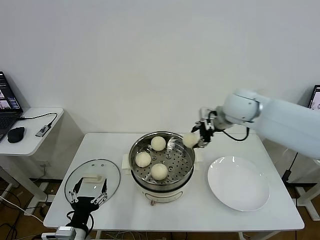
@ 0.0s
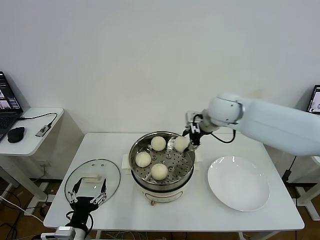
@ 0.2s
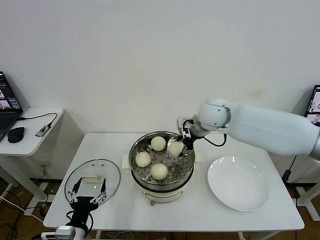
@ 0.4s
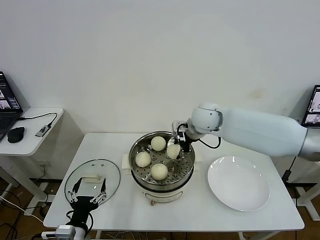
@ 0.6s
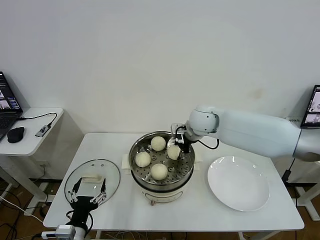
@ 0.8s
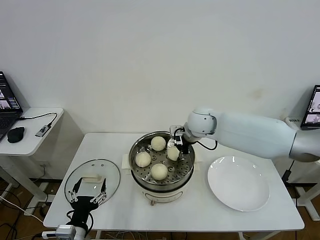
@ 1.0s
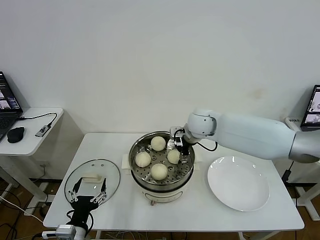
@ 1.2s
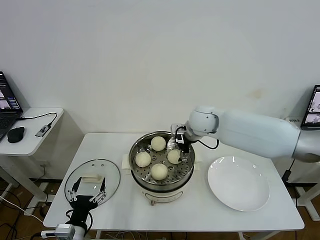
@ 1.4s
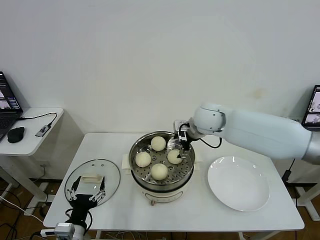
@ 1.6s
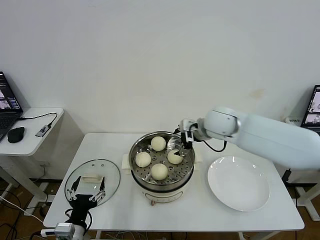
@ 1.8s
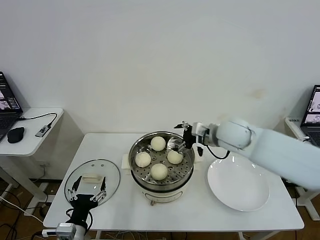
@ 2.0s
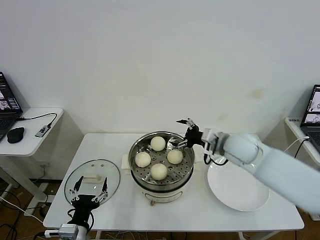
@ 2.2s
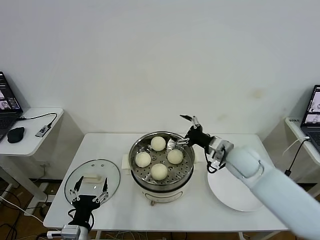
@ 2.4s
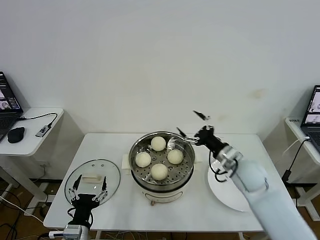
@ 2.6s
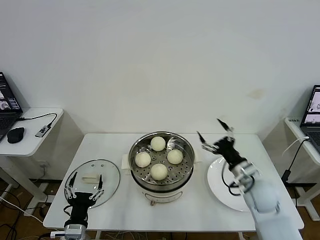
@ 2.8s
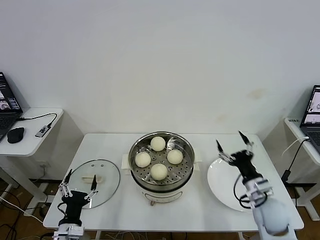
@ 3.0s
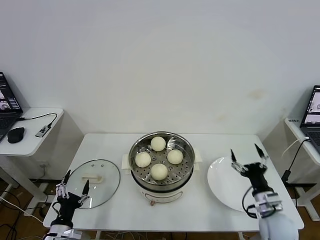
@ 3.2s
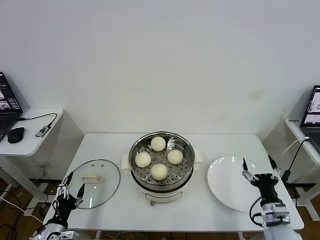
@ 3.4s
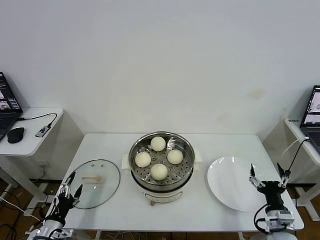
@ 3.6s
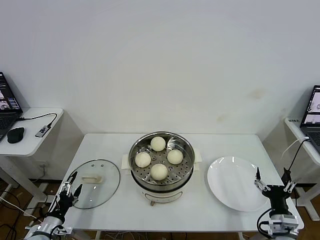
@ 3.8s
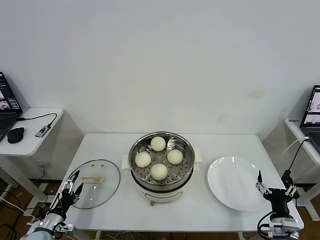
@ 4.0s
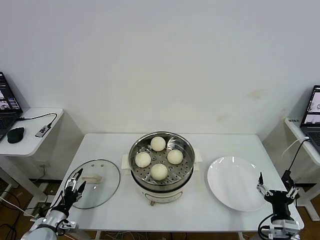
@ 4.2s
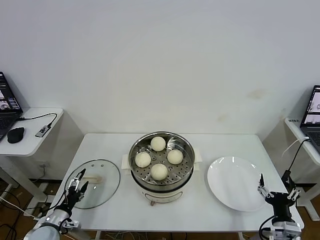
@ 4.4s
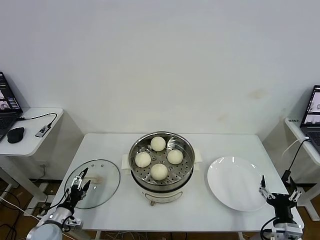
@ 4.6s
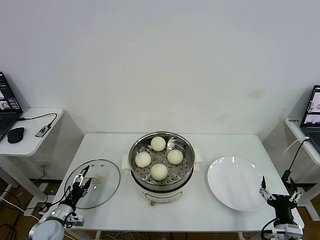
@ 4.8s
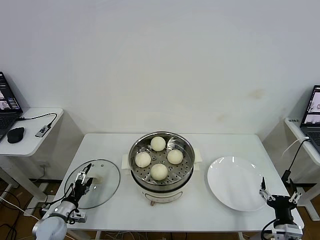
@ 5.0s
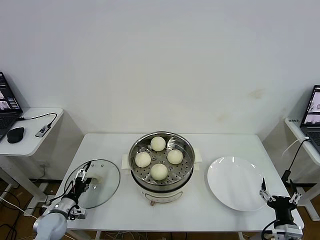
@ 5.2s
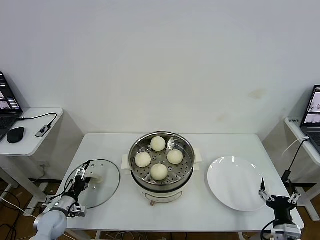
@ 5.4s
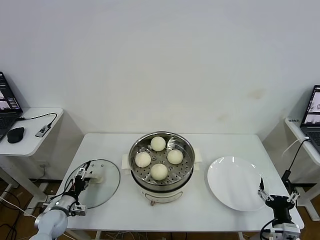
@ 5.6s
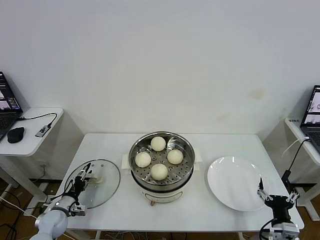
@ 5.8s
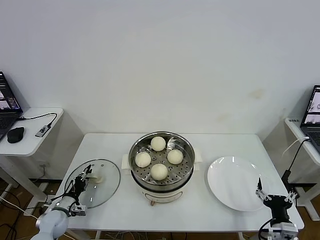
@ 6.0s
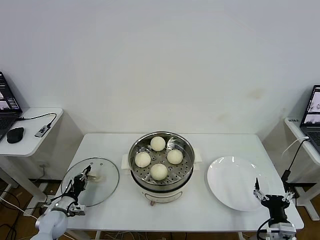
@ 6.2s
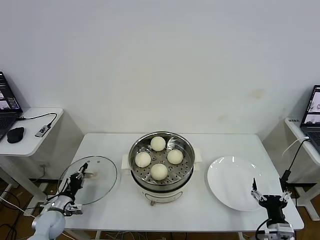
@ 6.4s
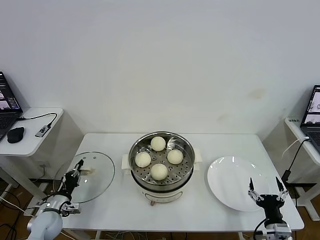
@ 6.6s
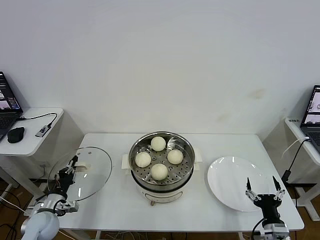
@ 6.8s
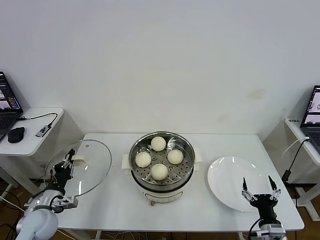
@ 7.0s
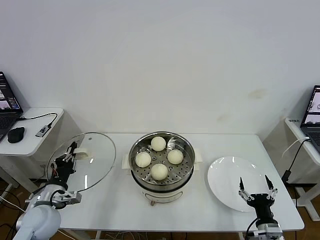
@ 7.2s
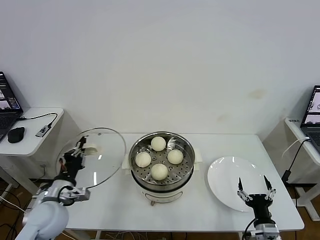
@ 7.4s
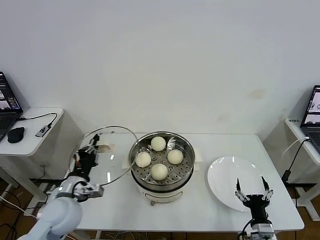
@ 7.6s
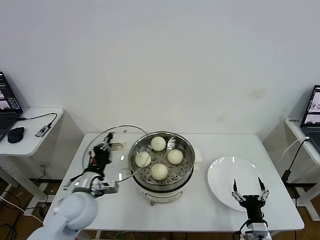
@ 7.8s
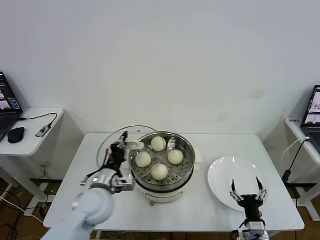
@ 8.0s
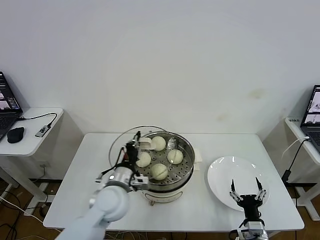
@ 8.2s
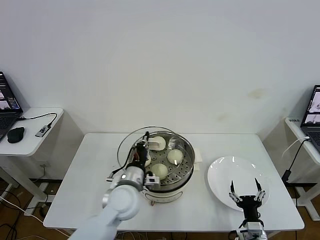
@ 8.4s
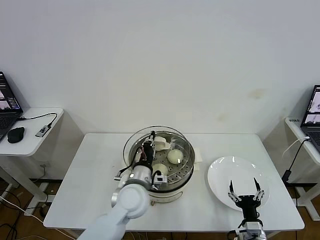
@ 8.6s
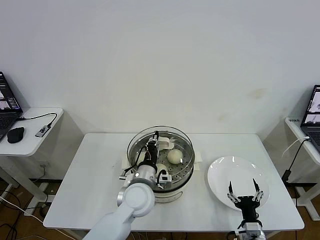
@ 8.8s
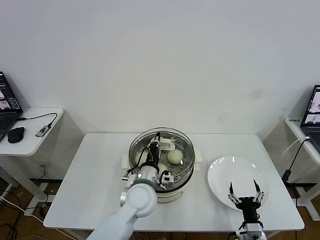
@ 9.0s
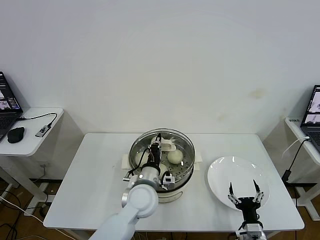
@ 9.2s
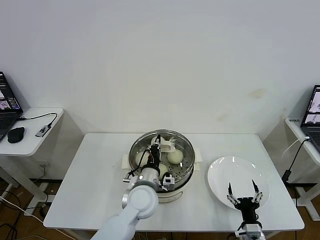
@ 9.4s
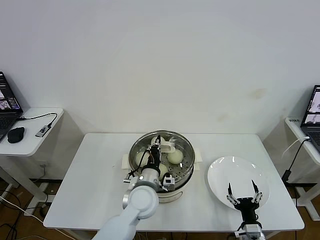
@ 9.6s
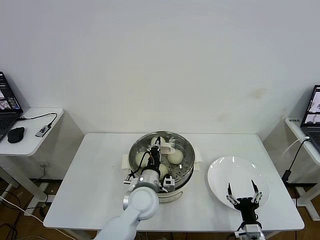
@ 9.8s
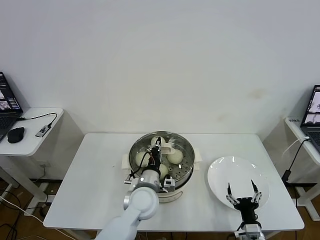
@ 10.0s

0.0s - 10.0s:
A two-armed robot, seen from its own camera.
Task of the whole recording: take steamed baozi put them in steamer then cover it.
Step, 0.0s - 1.4s: Place the baozi on the steamer with right gripper.
Step, 1.6s - 6.4s: Grasp the pot lid with left gripper.
0.0s - 1.4s: The right gripper is displaced to the left and downward by roughly 10 cm, and opens its fingers.
1.4s - 2.8s: The right gripper is displaced backward, to the right and downward by some 30 cm.
2.8s - 4.2s: The left gripper is displaced to the left, downward and forward by approximately 20 cm; the right gripper is displaced backward, downward and to the right by approximately 20 cm.
4.2s - 5.8s: The left gripper travels forward by roughly 5 cm.
5.8s - 7.2s: The left gripper goes approximately 15 cm upward, and closes up.
7.2s - 8.6s: The right gripper shifts by roughly 5 cm. The left gripper is displaced to the right by roughly 25 cm.
8.6s - 10.0s: The grippers move only a little.

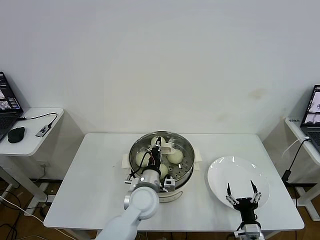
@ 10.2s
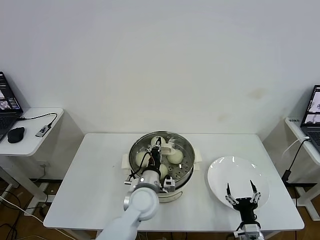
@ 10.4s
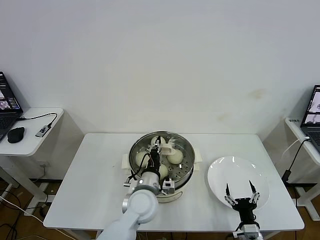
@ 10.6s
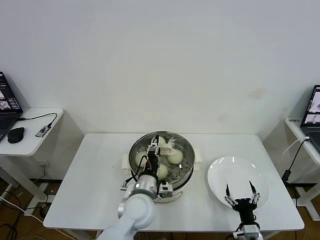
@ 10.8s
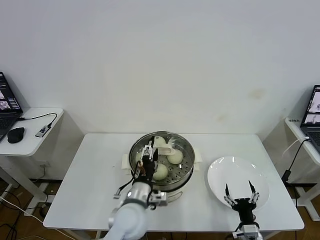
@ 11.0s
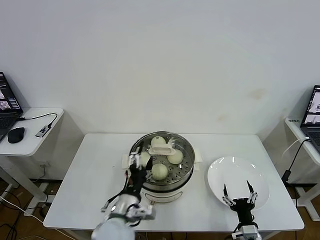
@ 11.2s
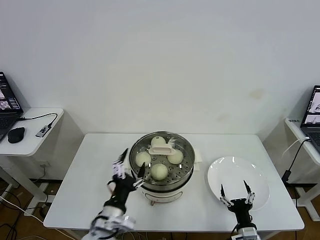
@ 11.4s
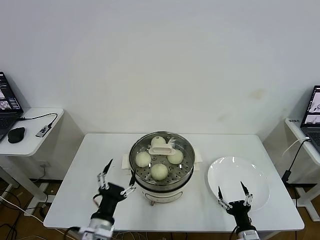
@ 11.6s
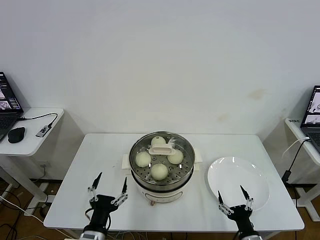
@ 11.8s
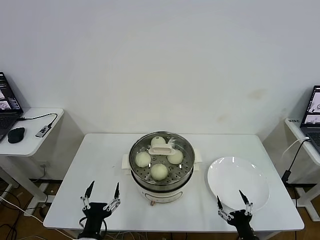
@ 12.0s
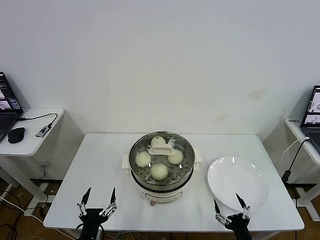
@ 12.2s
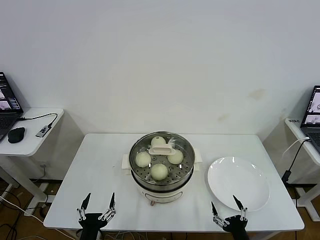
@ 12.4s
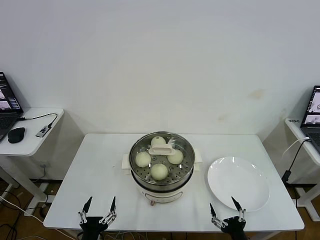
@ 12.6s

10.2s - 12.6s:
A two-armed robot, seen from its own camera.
Task of the whole recording: take steamed baozi put them in steamer then cover it.
10.2s - 11.4s: The left gripper is displaced backward and to the left by about 15 cm, and opens its fingers.
11.4s - 12.6s: The right gripper shifts approximately 5 cm backward. The left gripper shifts about 15 cm backward, to the left and downward.

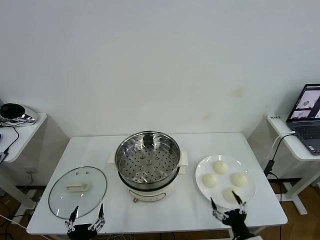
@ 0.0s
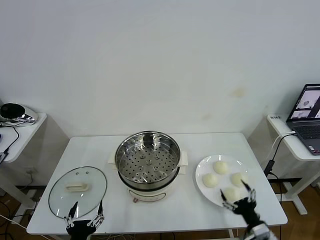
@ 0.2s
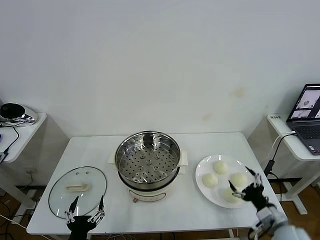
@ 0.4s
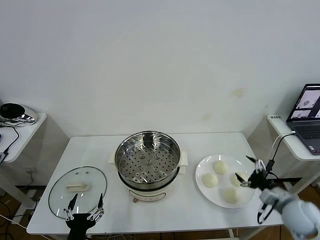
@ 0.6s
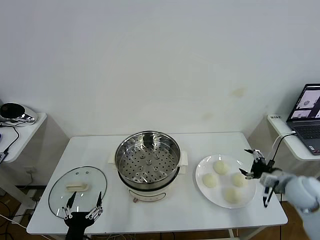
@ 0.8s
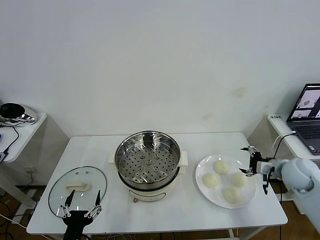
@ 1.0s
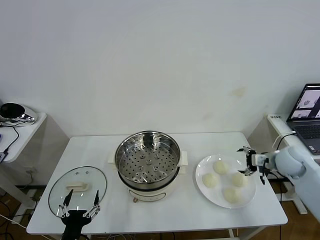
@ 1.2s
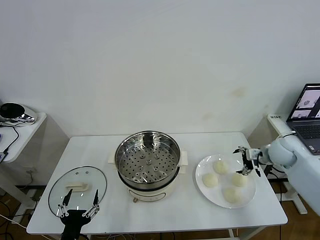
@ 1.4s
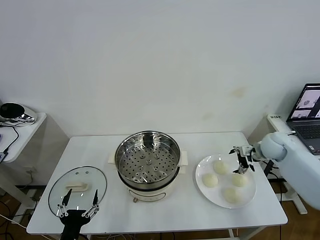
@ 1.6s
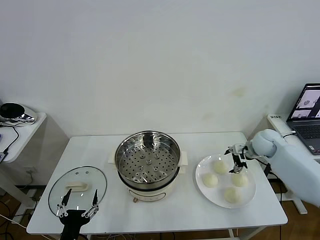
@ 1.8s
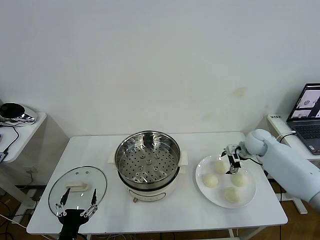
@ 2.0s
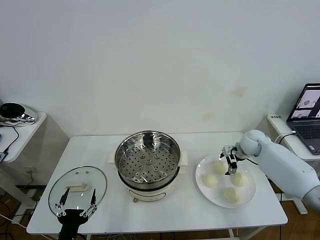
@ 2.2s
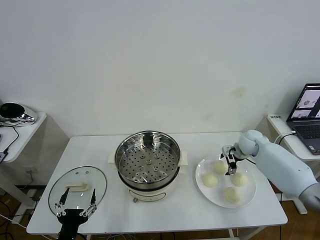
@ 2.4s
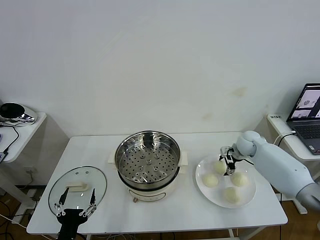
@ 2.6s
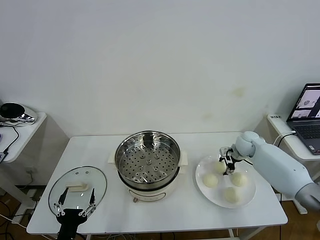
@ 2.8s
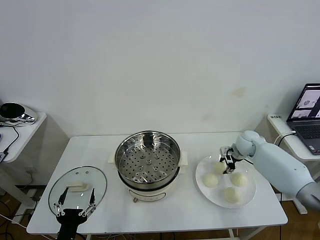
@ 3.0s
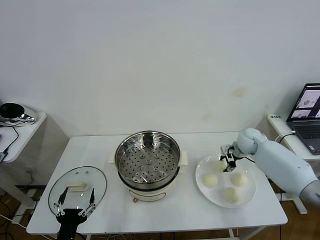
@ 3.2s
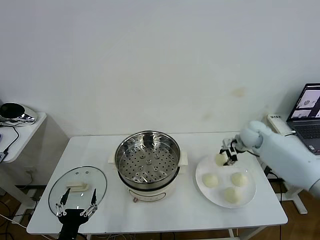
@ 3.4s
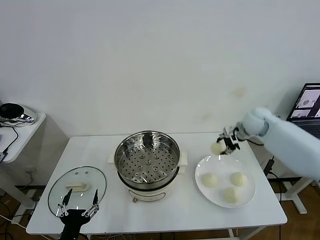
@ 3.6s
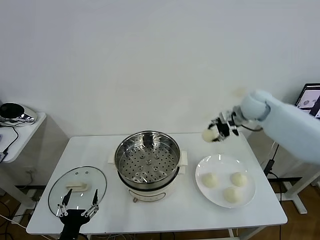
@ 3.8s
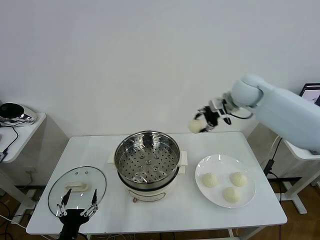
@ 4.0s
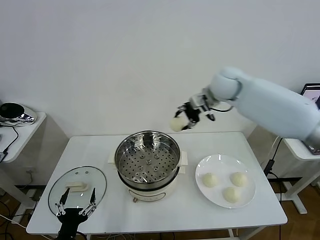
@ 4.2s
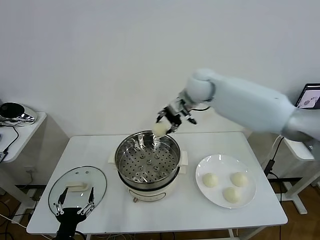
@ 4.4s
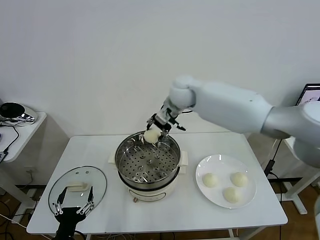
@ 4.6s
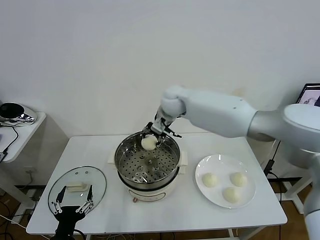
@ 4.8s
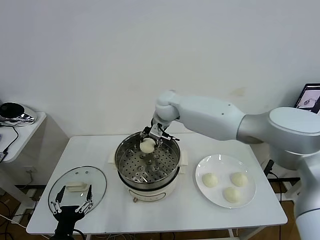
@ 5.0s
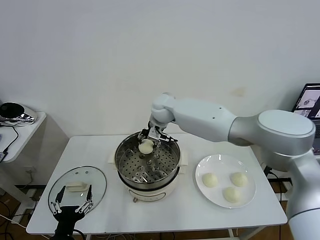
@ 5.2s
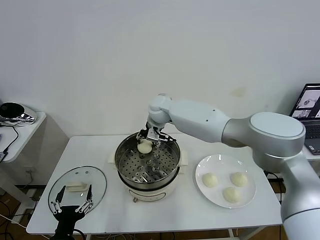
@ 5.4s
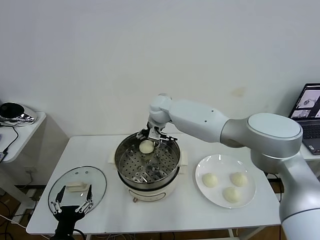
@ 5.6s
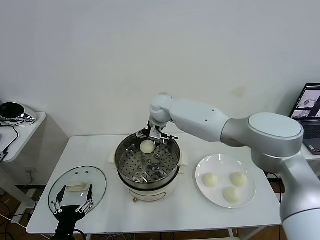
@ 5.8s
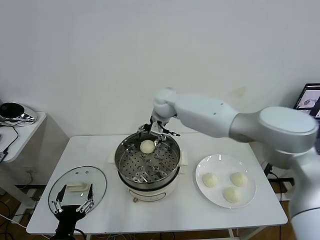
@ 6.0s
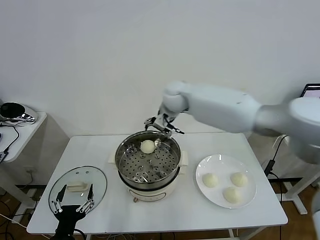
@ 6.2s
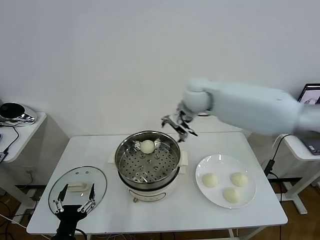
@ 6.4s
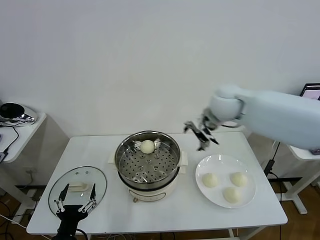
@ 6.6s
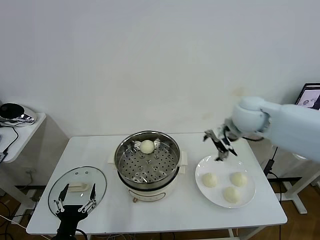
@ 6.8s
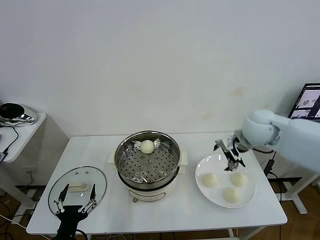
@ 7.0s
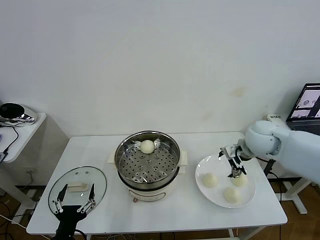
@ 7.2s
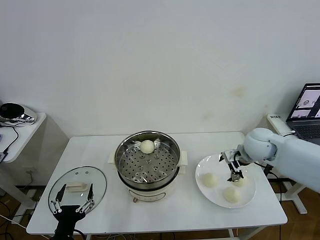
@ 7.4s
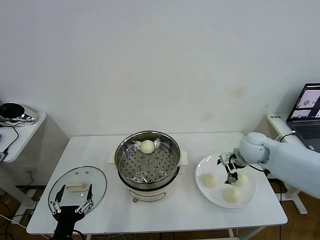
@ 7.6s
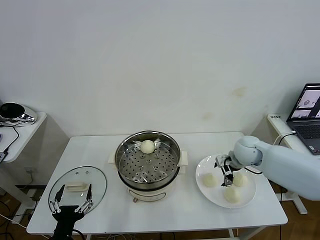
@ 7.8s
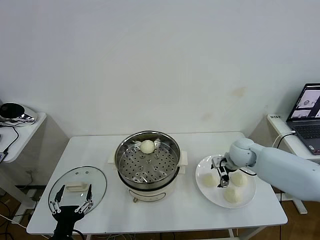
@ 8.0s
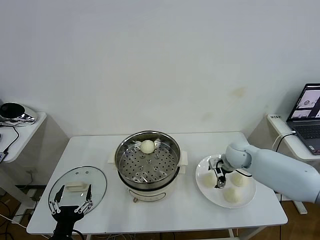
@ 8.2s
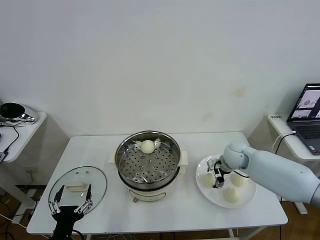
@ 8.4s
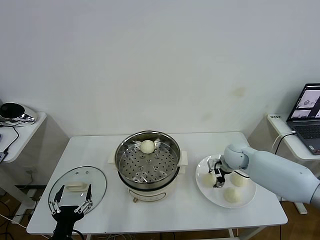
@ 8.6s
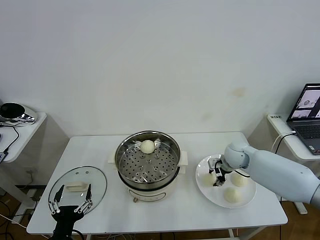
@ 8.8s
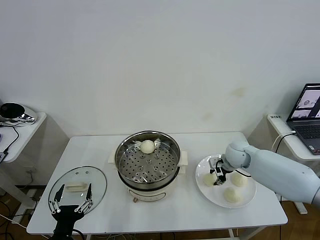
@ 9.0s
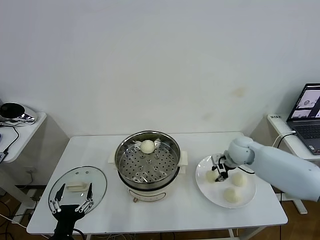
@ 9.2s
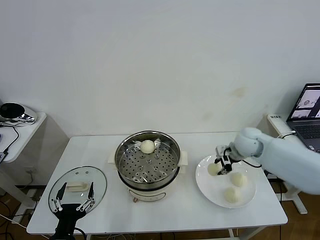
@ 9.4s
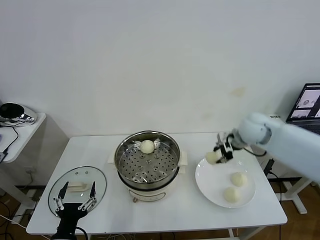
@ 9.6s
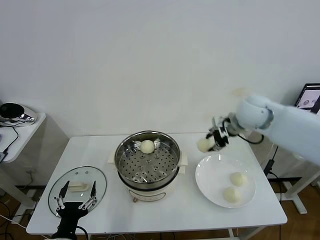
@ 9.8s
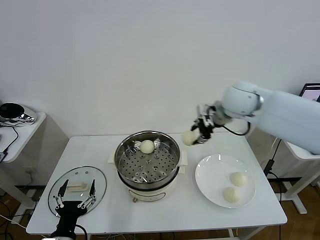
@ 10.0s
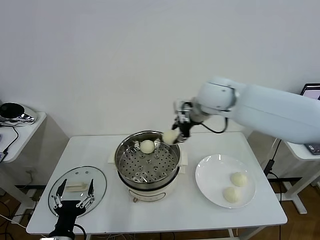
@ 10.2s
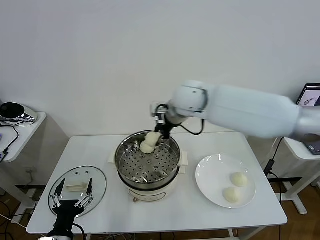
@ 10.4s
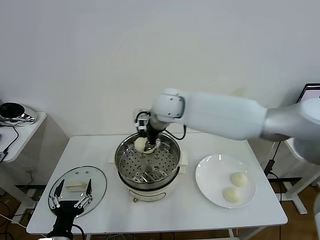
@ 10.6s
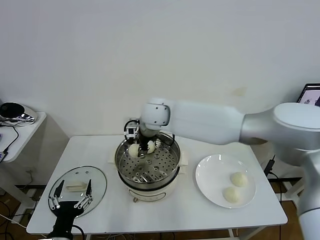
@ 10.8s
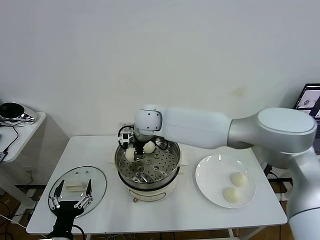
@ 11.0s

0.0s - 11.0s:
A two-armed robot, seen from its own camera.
Task of the whole recording: take steamed baozi put them in steamer then cover it.
Step, 0.0s - 3.0s: Grasp the baozi in the plate with right gripper.
Step, 3.2s - 5.6s: Place the baozi on the steamer with right gripper.
Step, 5.8s - 8.6s: Grasp the baozi in the plate with right gripper.
1.6s - 3.2s: The right gripper changes place by about 5 cm, and closes its fingers.
3.2s - 4.8s: The right gripper moves to the left, roughly 30 cm.
4.8s - 6.2s: The right gripper heads to the right and upward, covering approximately 10 cm, and opens its fingers.
6.2s - 7.8s: The right gripper goes some 25 cm to the right and downward.
7.8s - 9.4s: The right gripper travels upward by roughly 10 cm, and closes its fingers.
9.4s - 11.0s: The right gripper travels to the left by roughly 35 cm.
